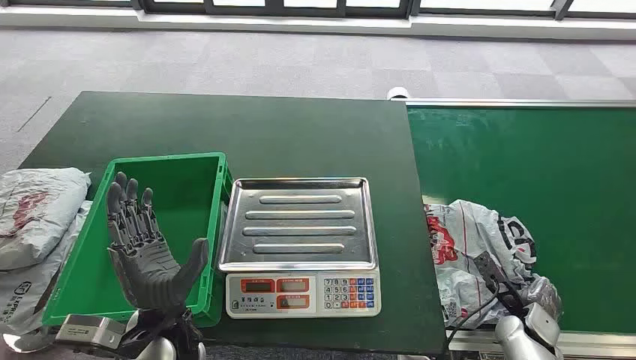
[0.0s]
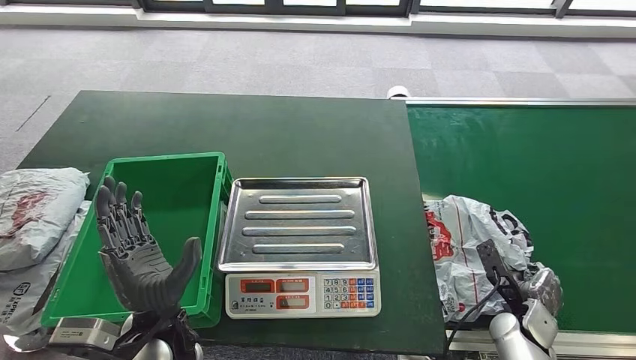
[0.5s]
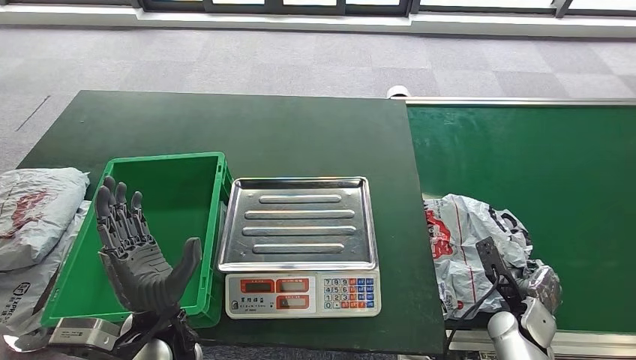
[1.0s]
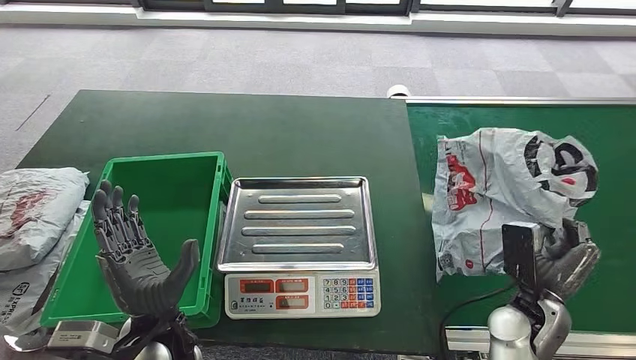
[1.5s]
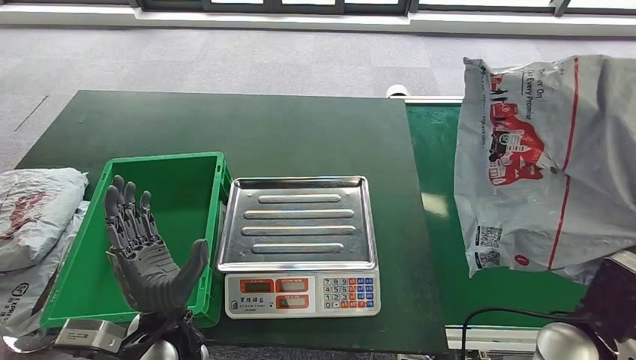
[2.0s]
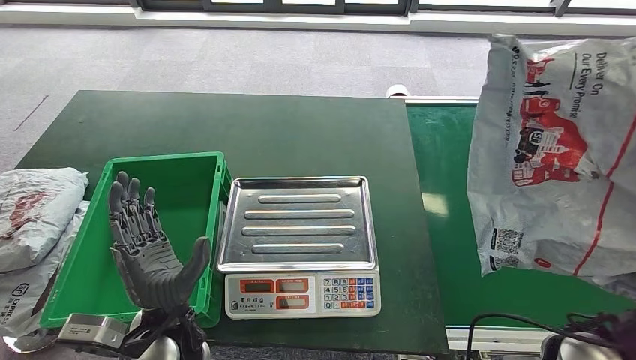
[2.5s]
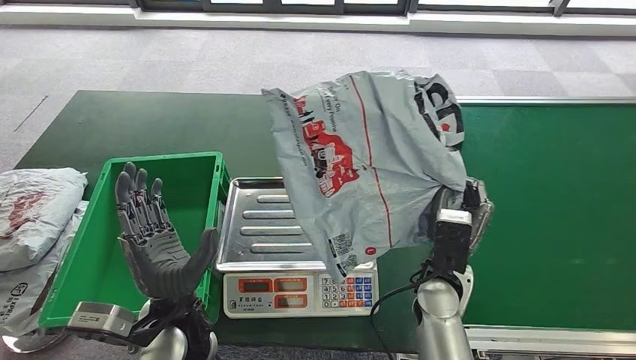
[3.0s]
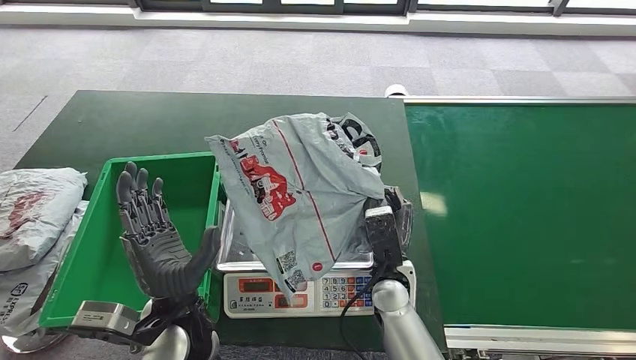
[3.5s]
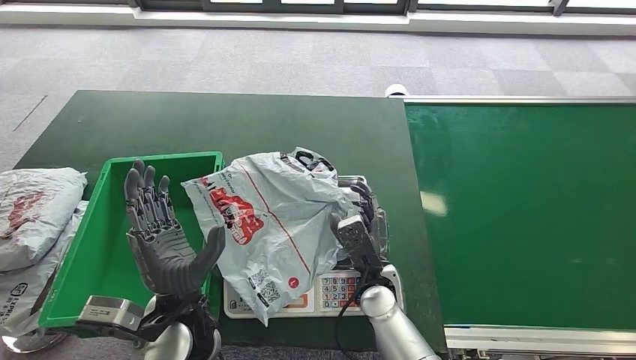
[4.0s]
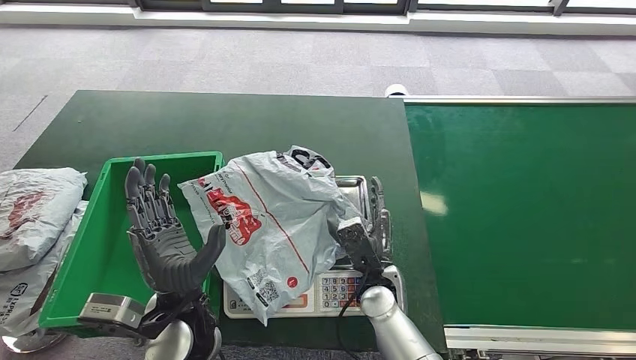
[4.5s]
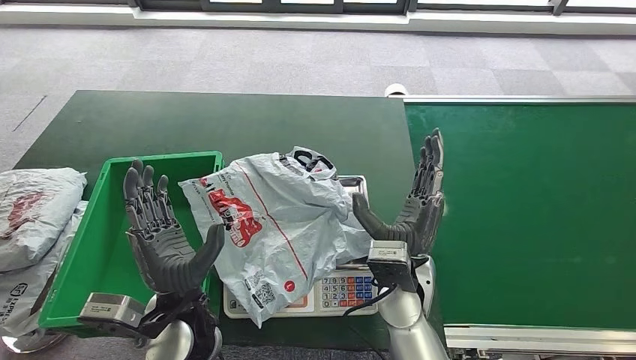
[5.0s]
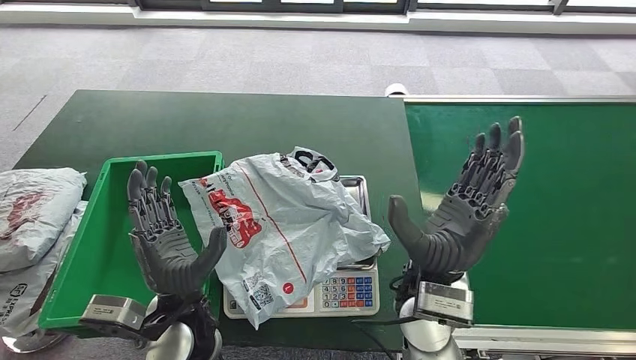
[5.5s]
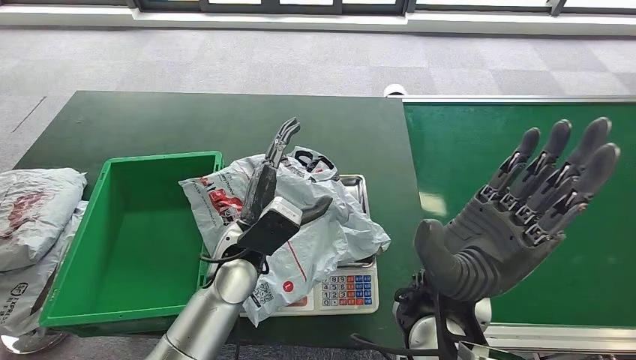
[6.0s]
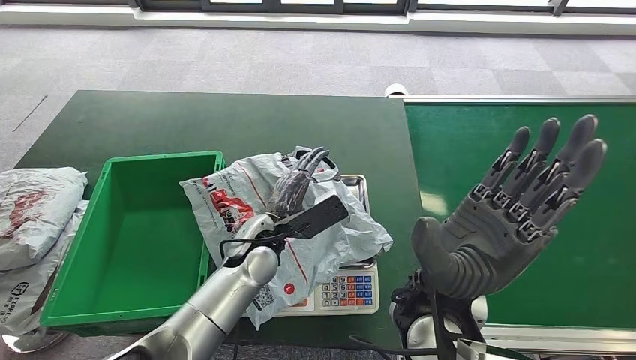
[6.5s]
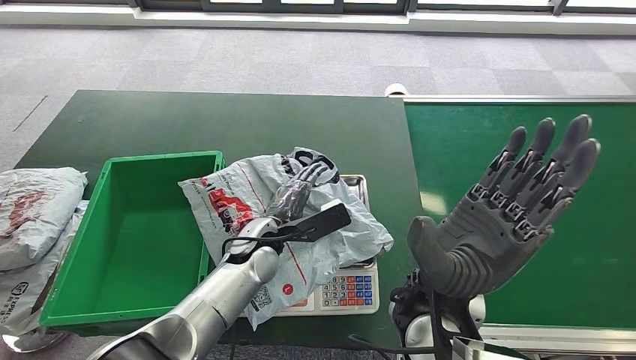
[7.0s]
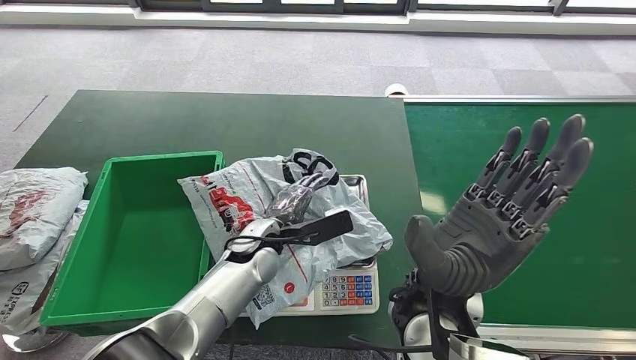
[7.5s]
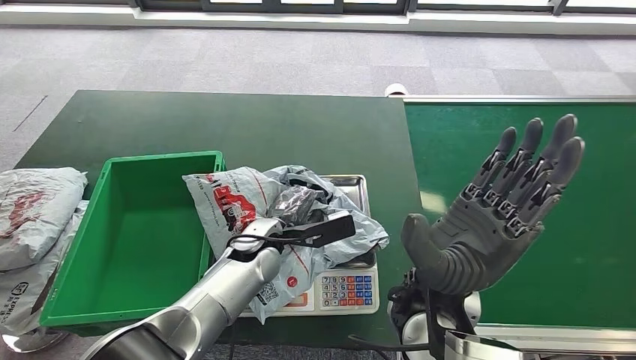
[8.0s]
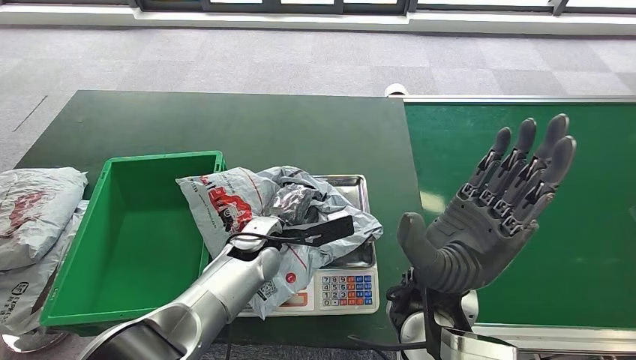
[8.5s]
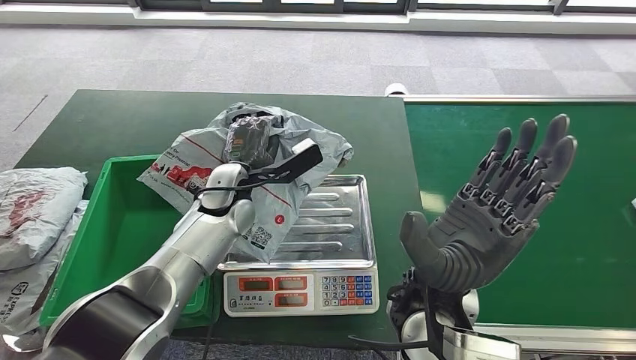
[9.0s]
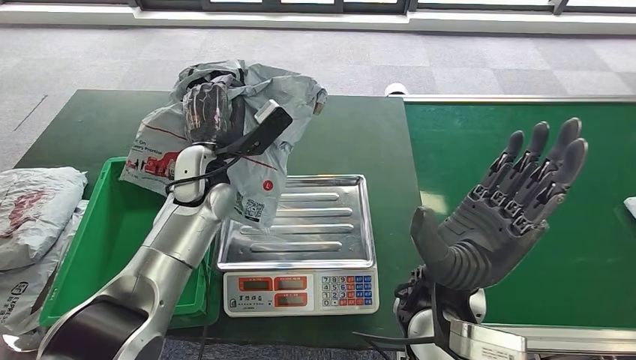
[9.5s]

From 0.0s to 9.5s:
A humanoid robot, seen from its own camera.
Step, from 0.0s to 2.0s: Take the parcel off the conveyor belt.
Step, from 2.5s to 5.0s: Place the parcel onto the inbound machine.
From 4.0s to 5.5s: The right hand moves upward, roughly 15 cm.
From 5.5s to 7.5s: The left hand is displaced forward and to the right by some 15 cm.

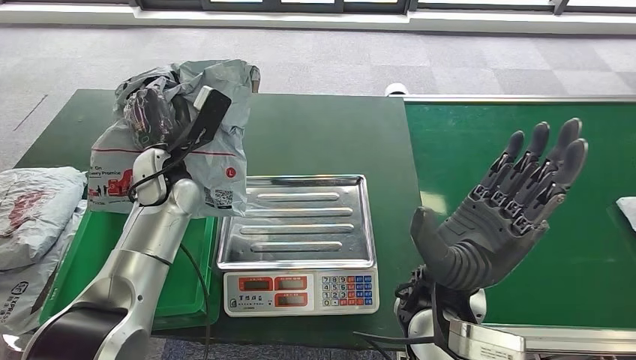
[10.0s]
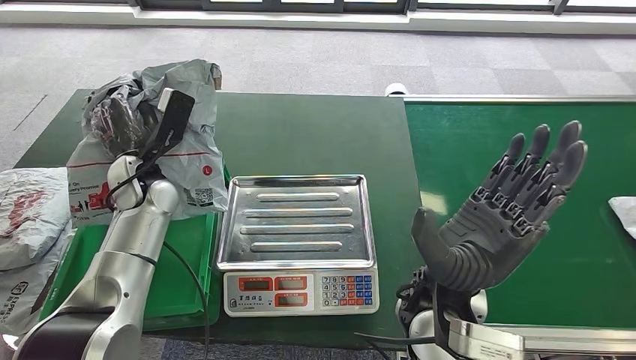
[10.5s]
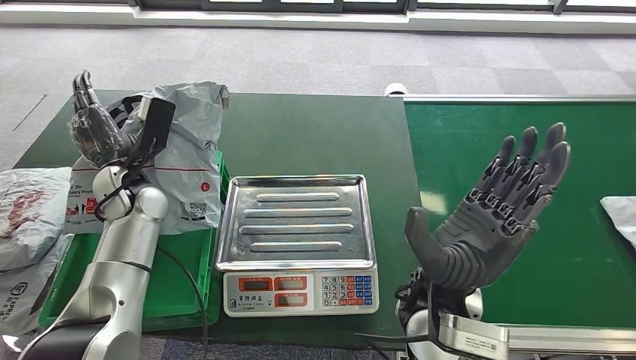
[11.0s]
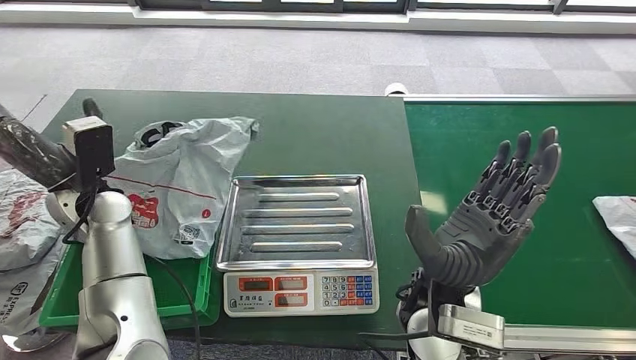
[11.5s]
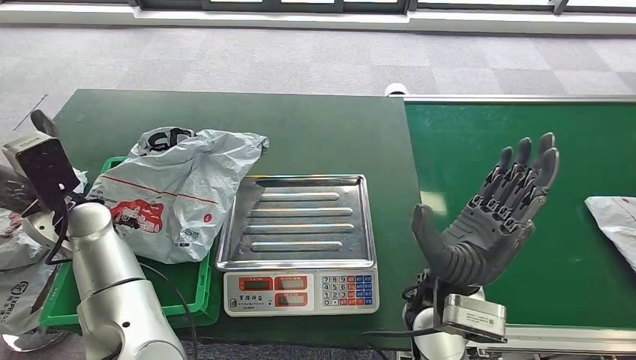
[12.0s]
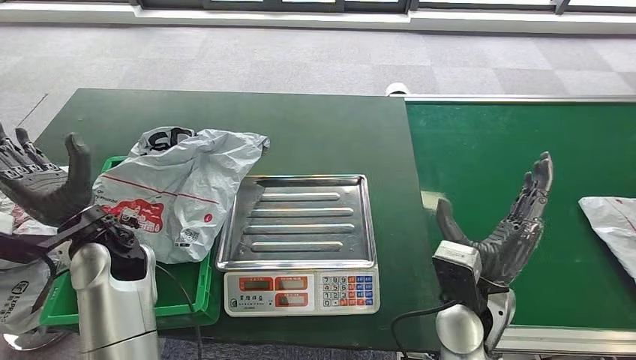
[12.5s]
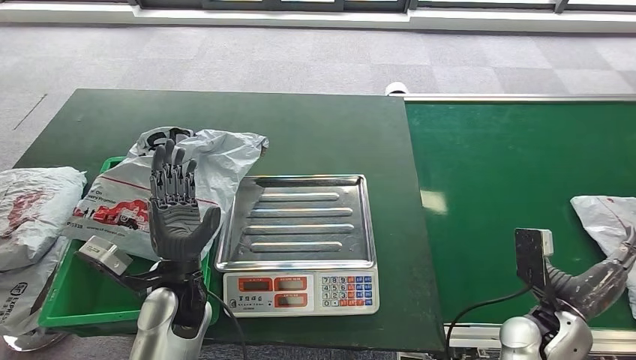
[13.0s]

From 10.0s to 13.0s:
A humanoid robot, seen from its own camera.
Step, from 10.0s to 13.0s: Put the parcel inside the courier box.

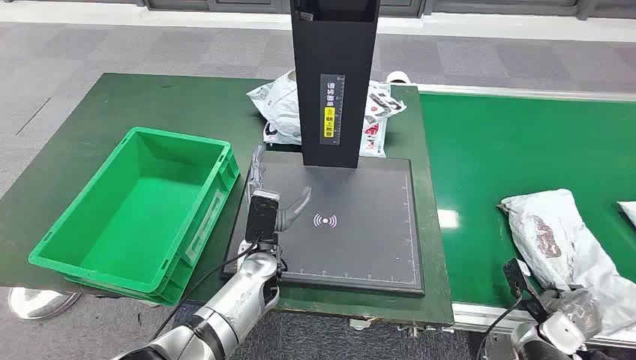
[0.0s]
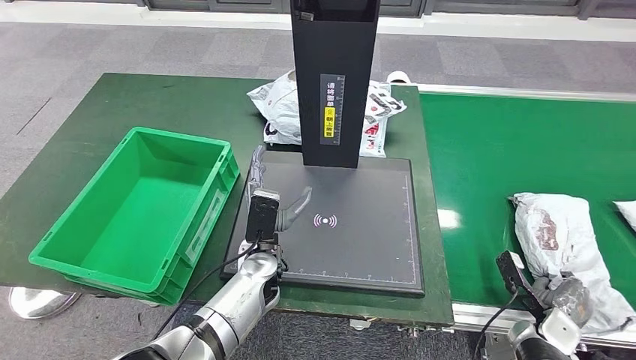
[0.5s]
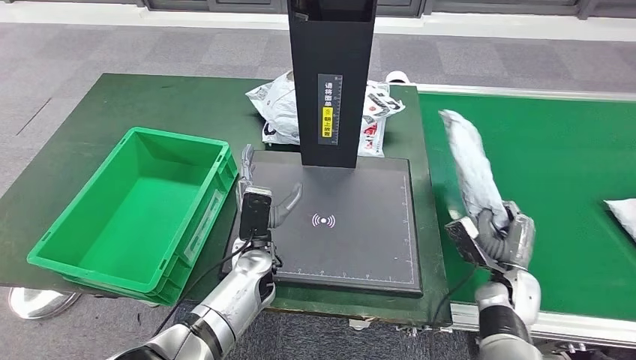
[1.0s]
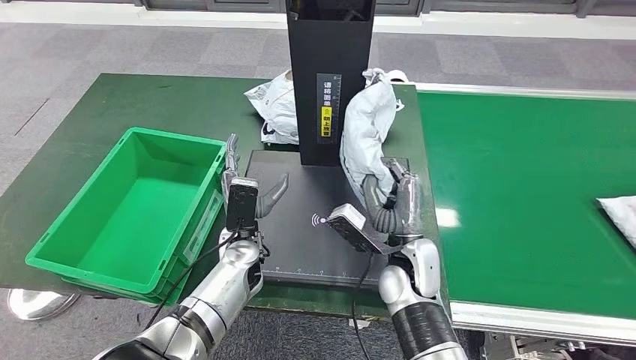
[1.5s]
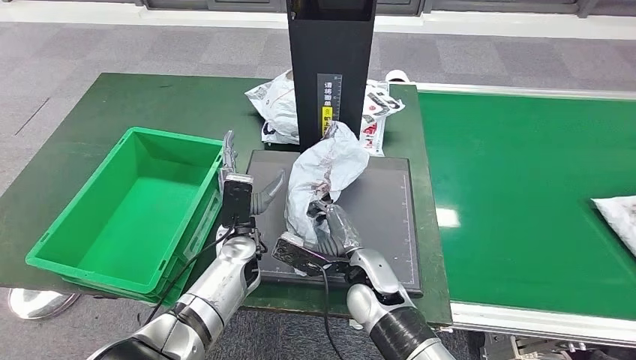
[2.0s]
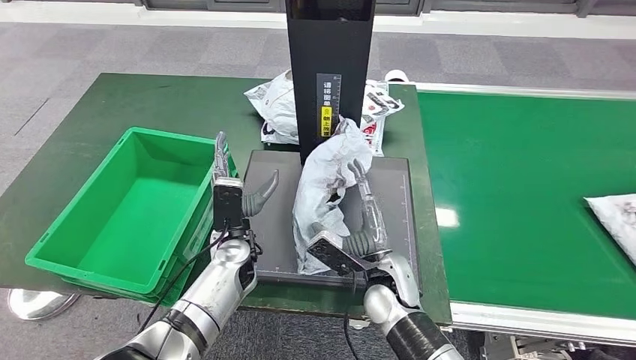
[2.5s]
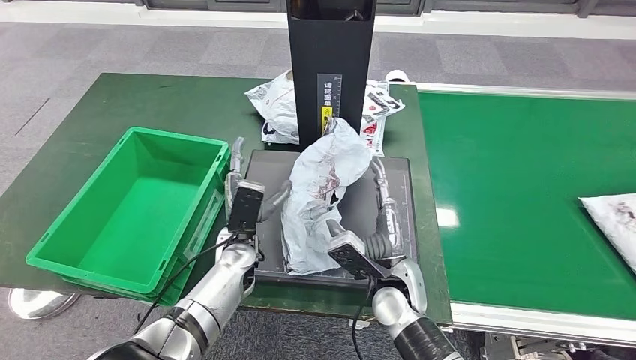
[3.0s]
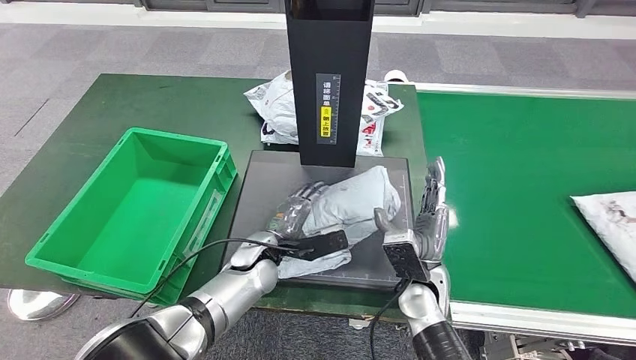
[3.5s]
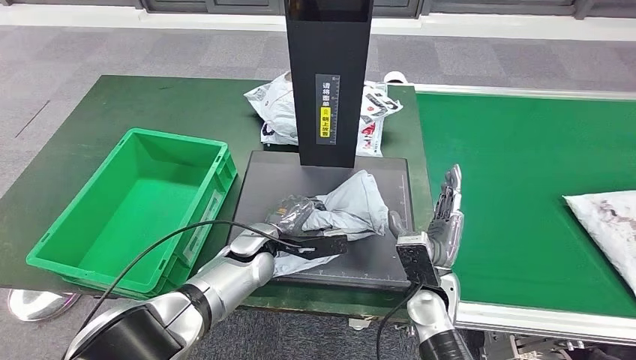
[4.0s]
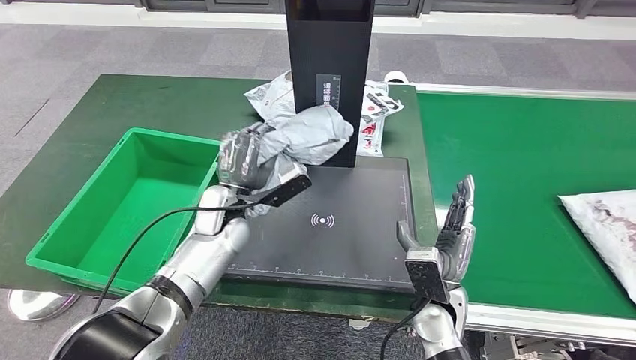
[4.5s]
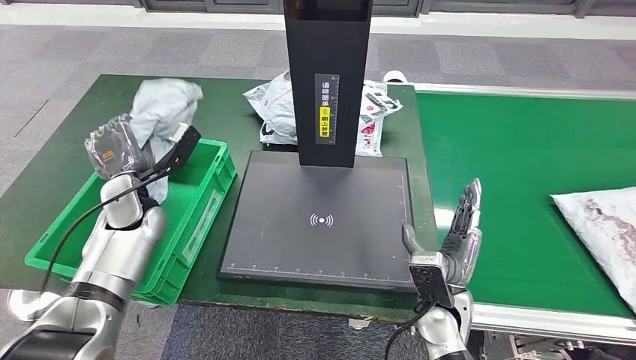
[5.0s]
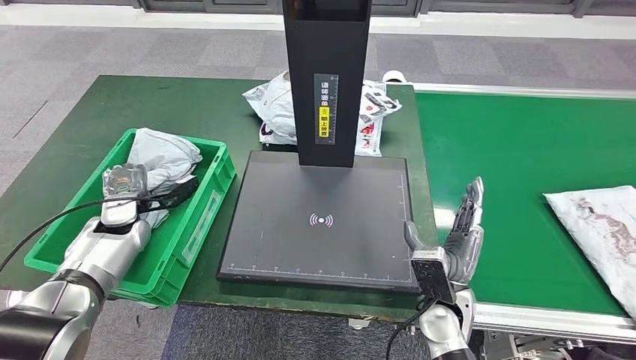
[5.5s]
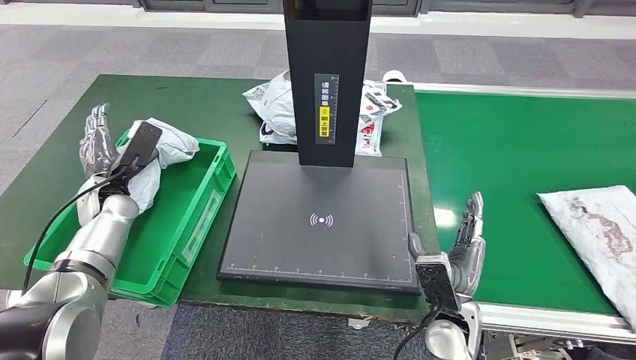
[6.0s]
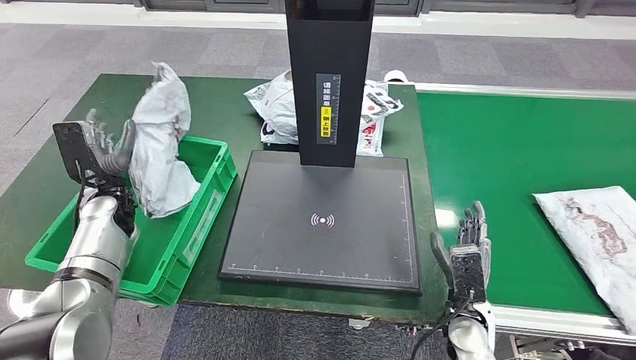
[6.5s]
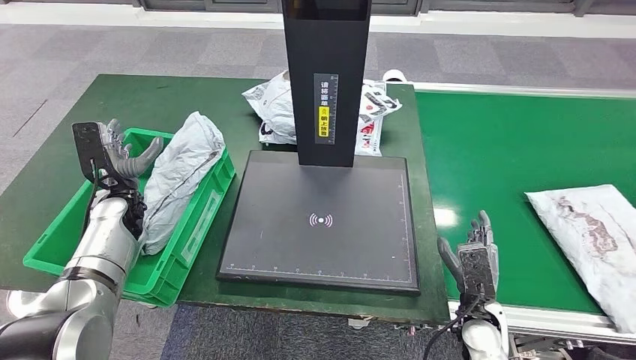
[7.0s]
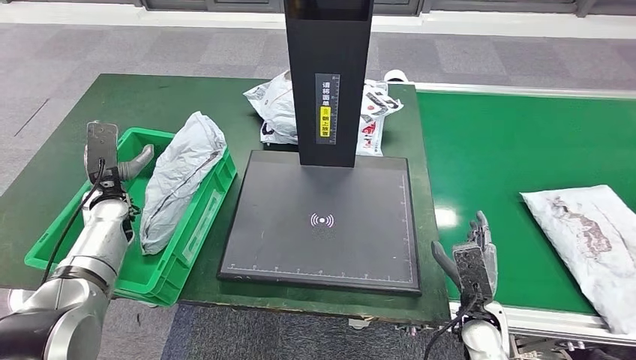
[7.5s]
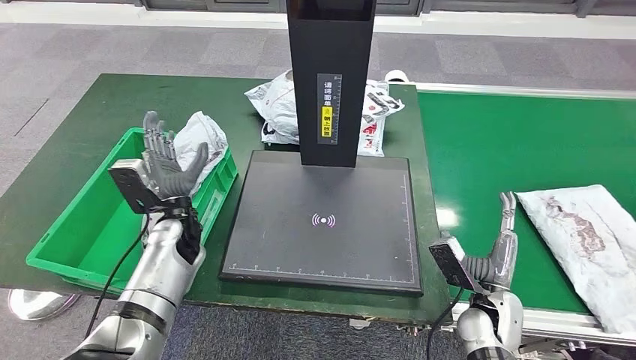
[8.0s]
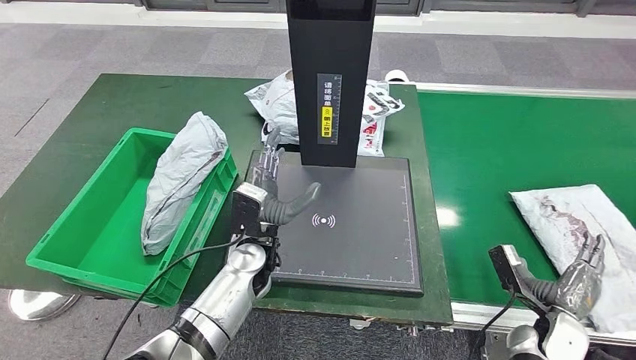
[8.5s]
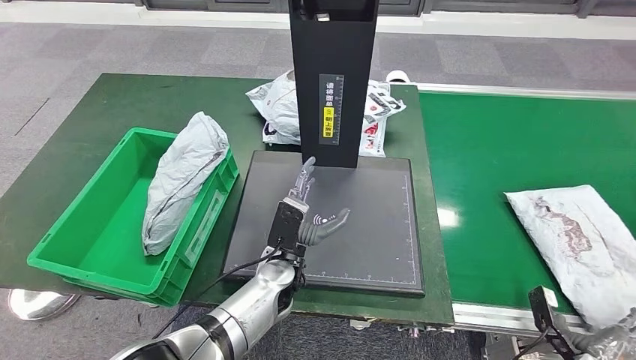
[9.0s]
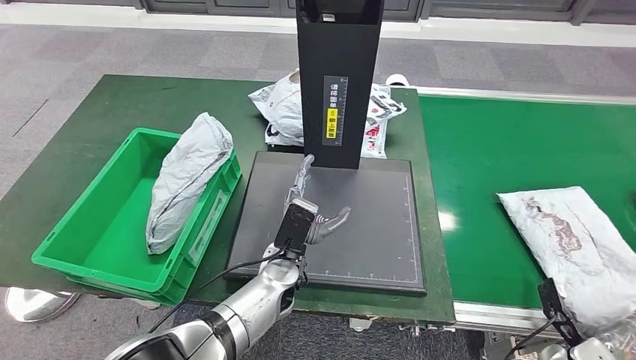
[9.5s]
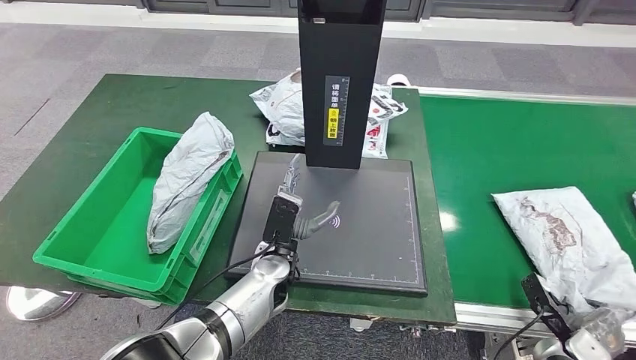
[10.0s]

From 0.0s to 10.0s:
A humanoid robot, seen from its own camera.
Step, from 0.0s to 1.0s: Take the parcel off the conveyor belt.
Step, from 1.5s to 3.5s: Place the parcel onto the inbound machine.
Step, from 4.0s to 4.5s: Pick up the parcel from the inbound machine.
Step, from 5.0s to 8.5s: Put the parcel inside the courier box.
